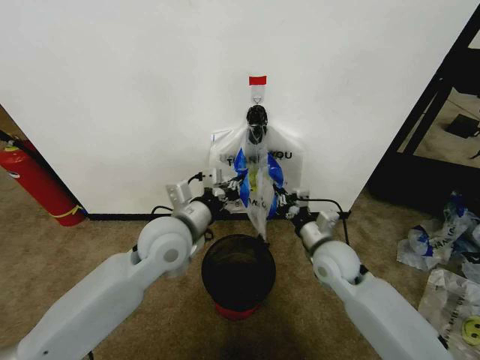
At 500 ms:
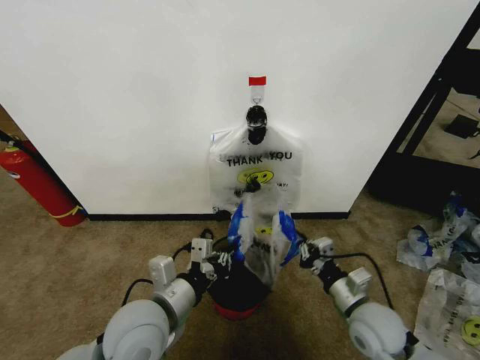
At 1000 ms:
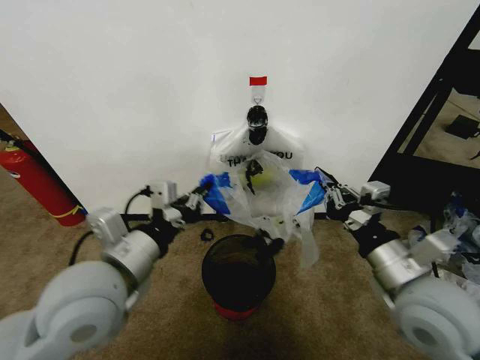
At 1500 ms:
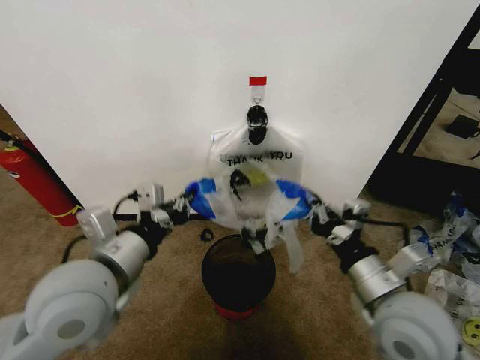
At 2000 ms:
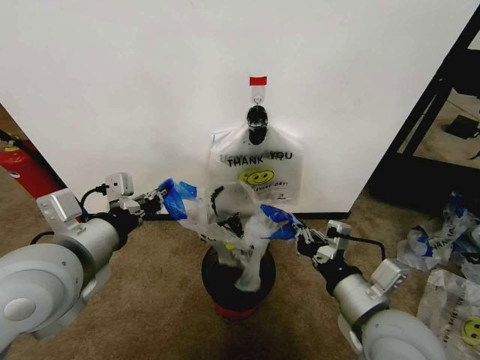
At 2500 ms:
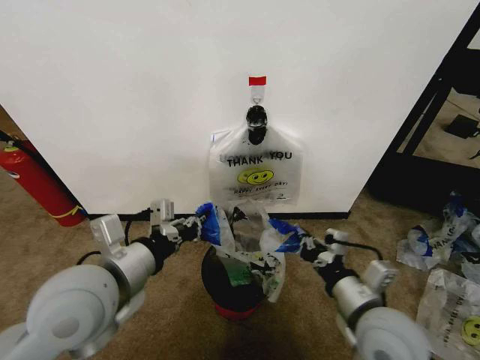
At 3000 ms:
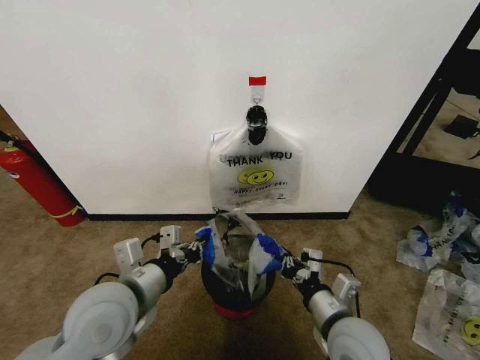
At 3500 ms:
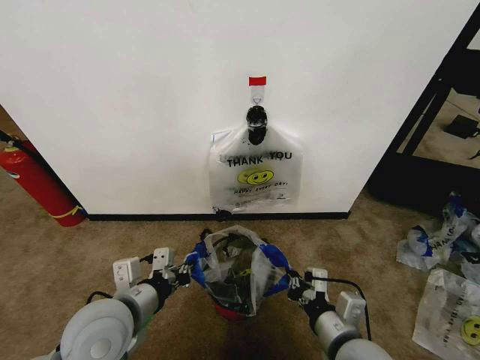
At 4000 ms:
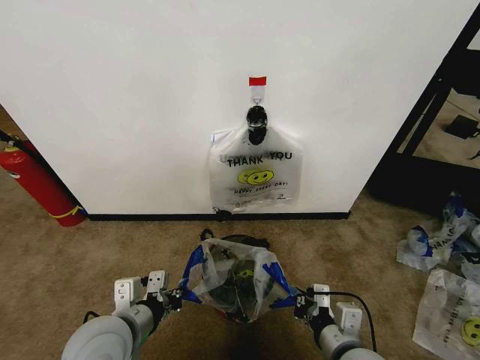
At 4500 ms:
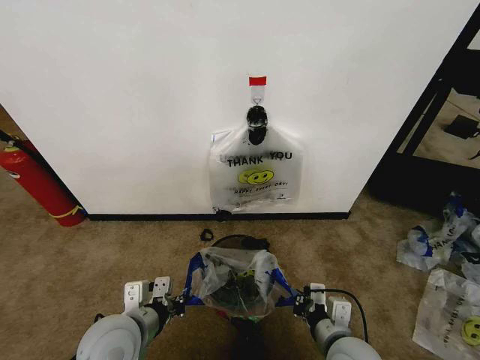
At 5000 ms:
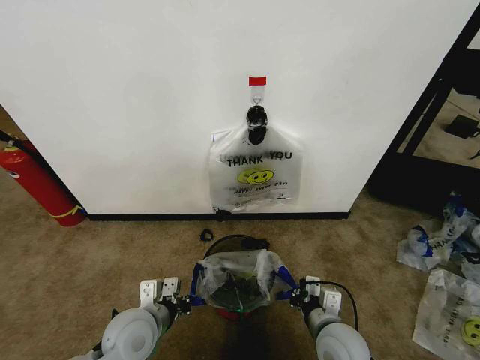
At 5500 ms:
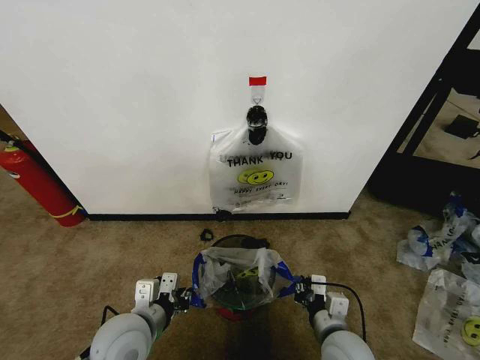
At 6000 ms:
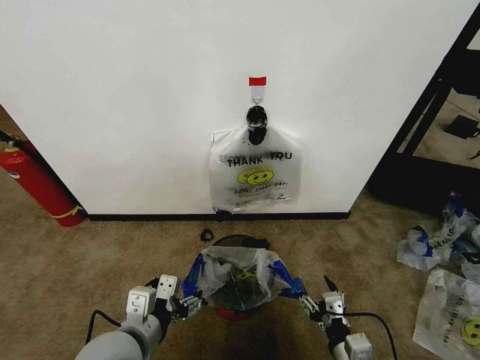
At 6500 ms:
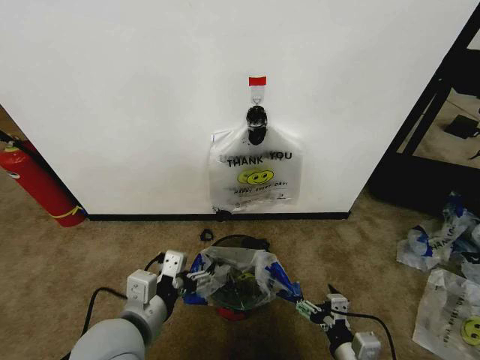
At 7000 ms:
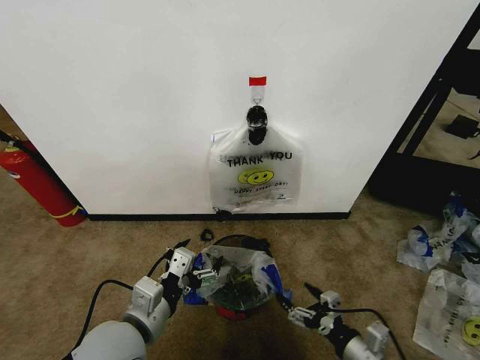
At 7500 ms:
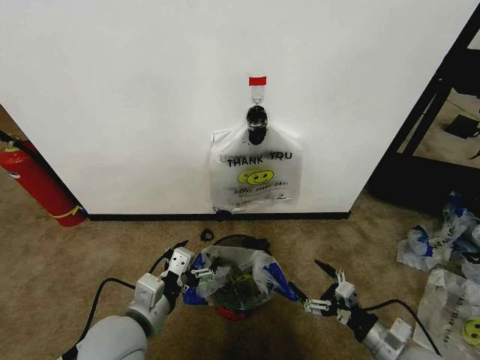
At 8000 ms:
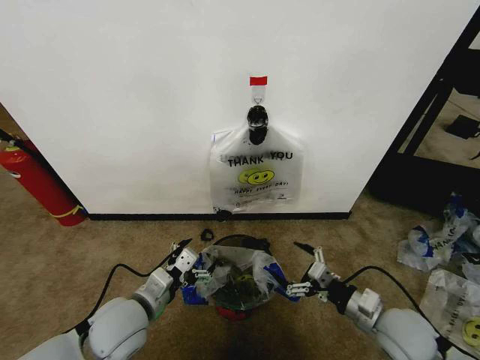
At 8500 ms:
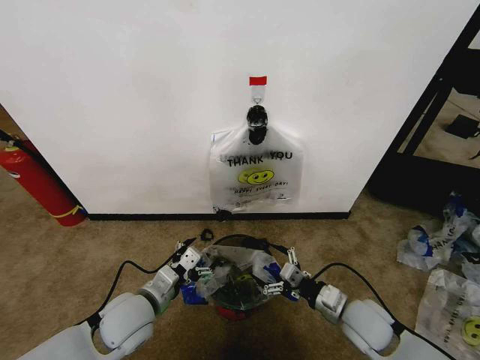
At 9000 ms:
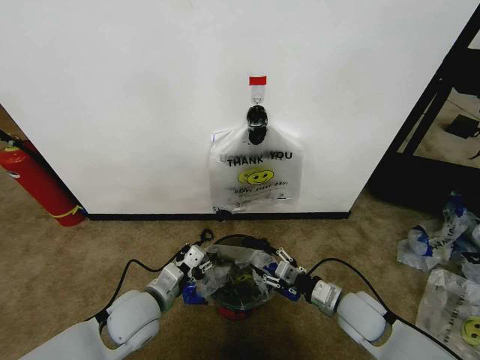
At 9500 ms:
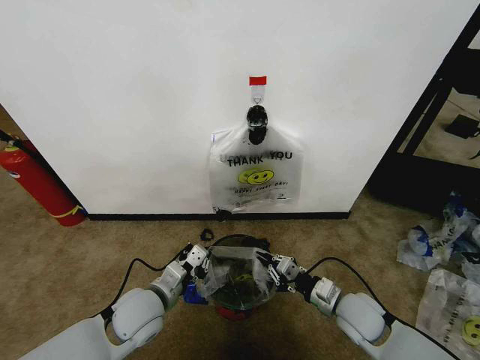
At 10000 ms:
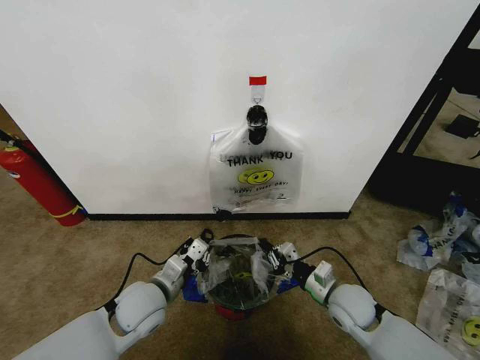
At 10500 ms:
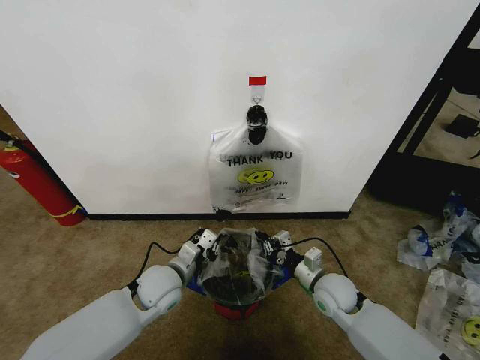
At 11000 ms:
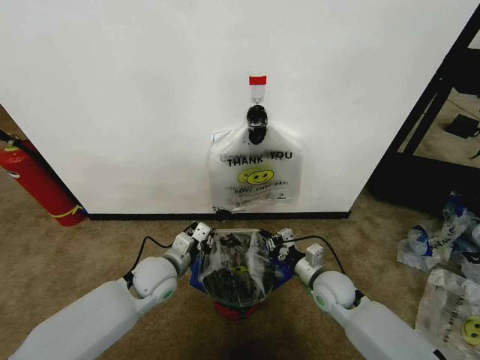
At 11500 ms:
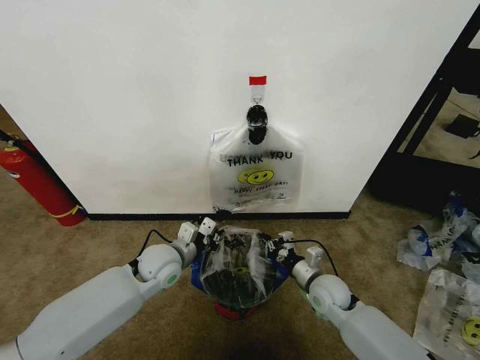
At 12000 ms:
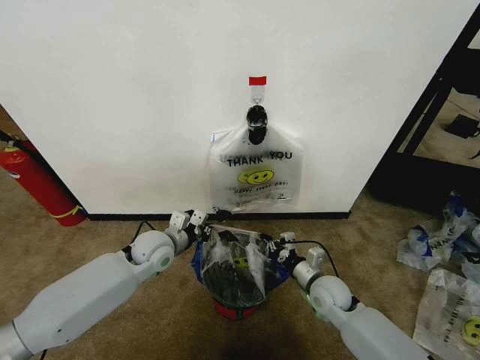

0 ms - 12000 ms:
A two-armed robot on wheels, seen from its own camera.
Task of the whole recording: Pick up the garbage bag from the wall and place it over the trash bin.
0 ms - 2000 ms: The right gripper heads backward and upward, covering some 20 cm, while the left gripper heads backward, to the left and upward, covering some 20 cm.
2000 ms - 4000 ms: The left gripper heads downward, covering about 15 cm. The right gripper moves downward, about 10 cm.
4000 ms - 6000 ms: The right gripper goes some 10 cm downward, goes forward and returns, approximately 5 cm each way, and opens up. Meanwhile the left gripper travels downward and back again, about 5 cm each way, and opens up.
6000 ms - 8000 ms: The left gripper goes approximately 5 cm forward, while the right gripper goes about 15 cm forward, to the right and upward.
8000 ms - 10000 ms: The right gripper travels forward and to the left by about 10 cm, and closes its fingers; the left gripper ends up about 5 cm from where it was, and closes up.
10000 ms - 12000 ms: The right gripper changes place by about 5 cm; the left gripper shifts about 10 cm forward.

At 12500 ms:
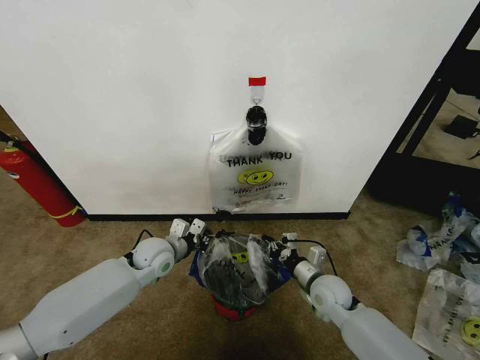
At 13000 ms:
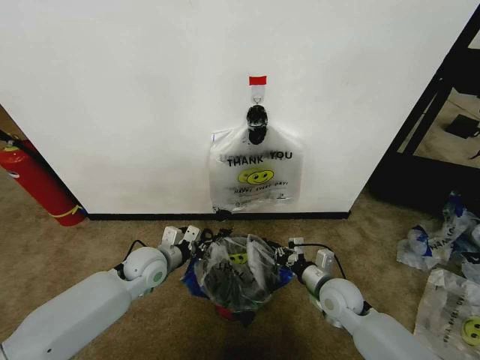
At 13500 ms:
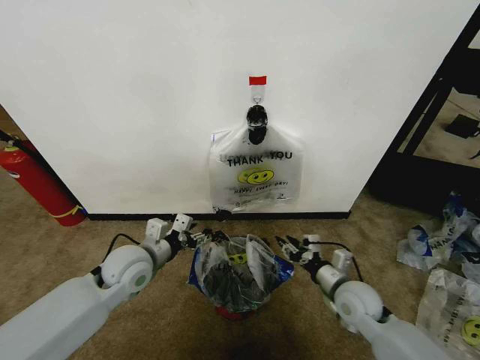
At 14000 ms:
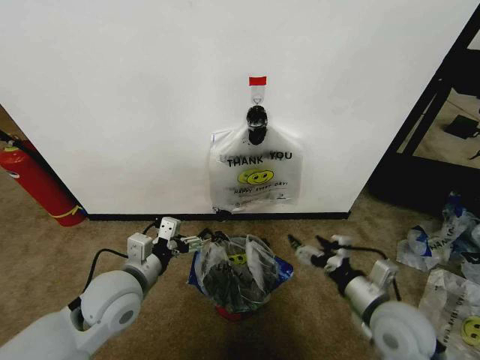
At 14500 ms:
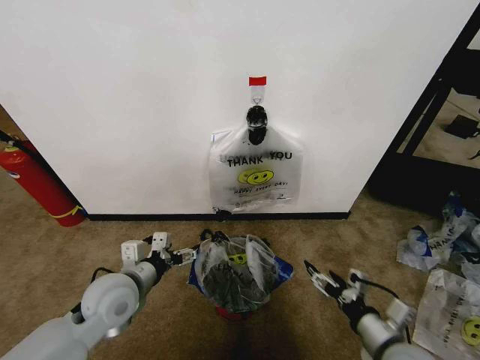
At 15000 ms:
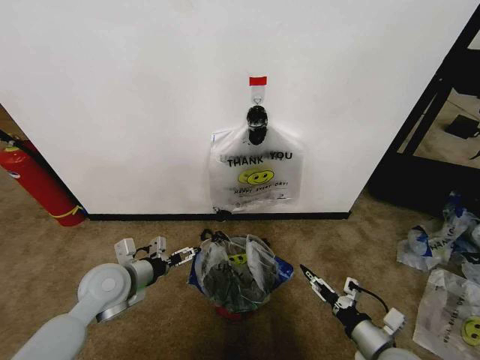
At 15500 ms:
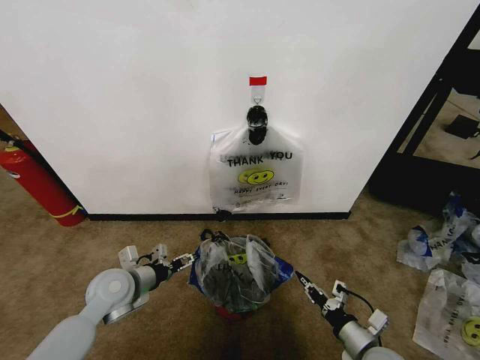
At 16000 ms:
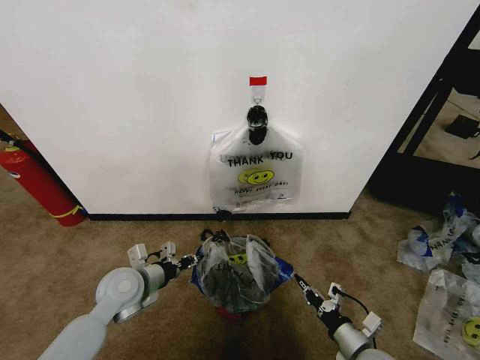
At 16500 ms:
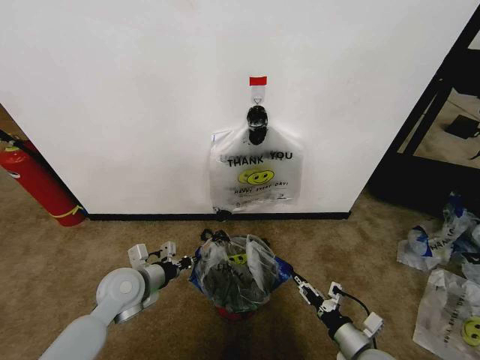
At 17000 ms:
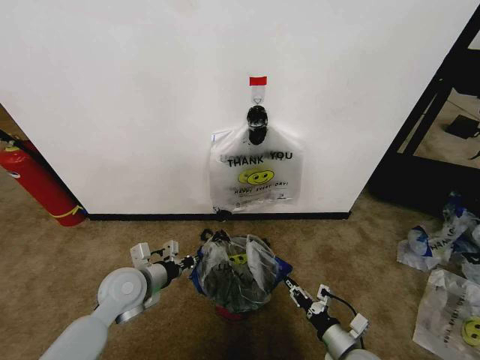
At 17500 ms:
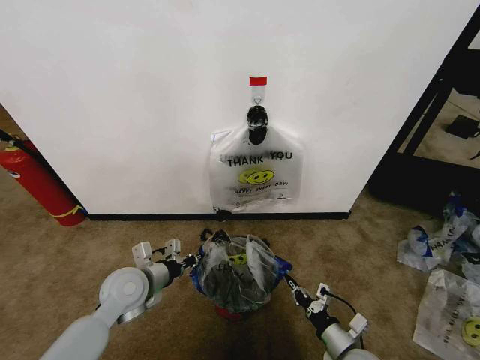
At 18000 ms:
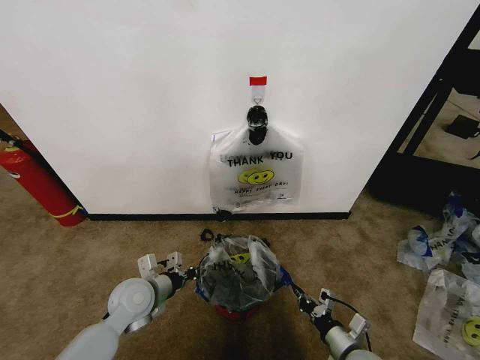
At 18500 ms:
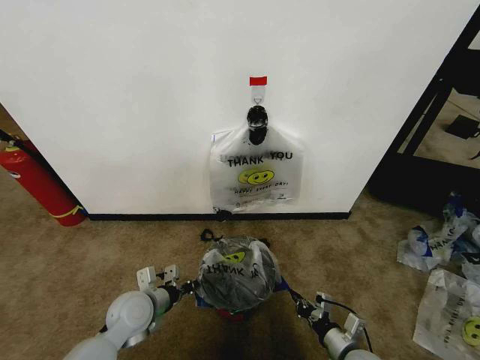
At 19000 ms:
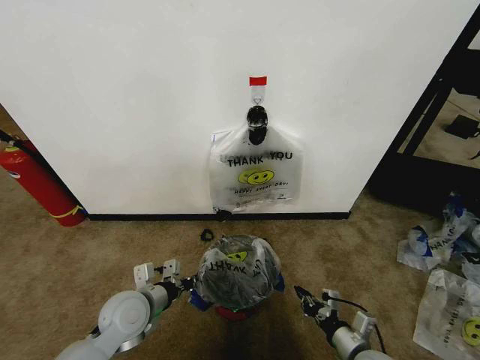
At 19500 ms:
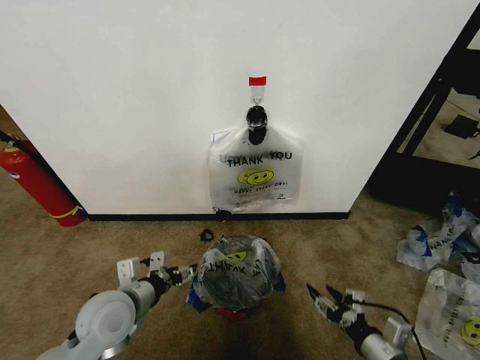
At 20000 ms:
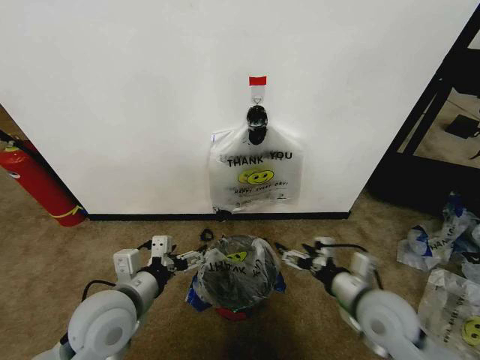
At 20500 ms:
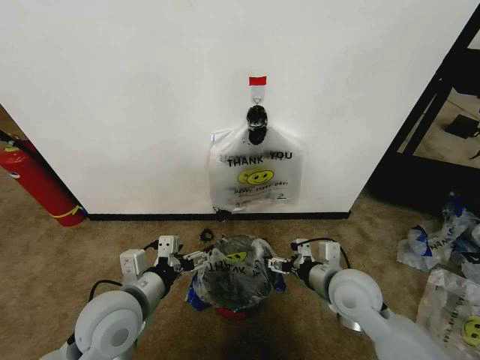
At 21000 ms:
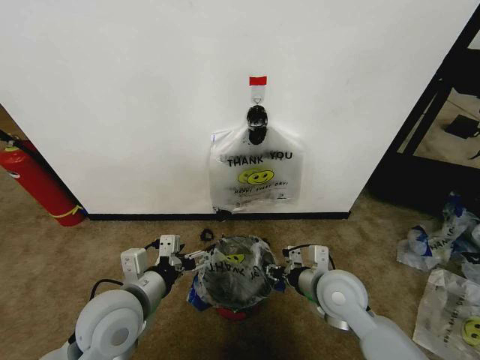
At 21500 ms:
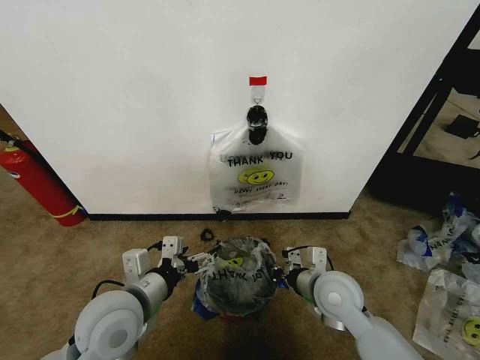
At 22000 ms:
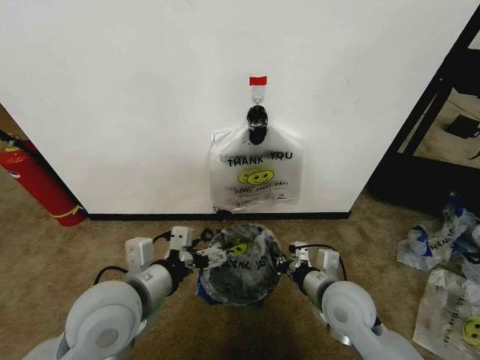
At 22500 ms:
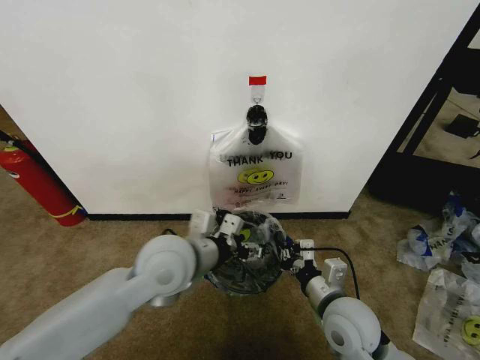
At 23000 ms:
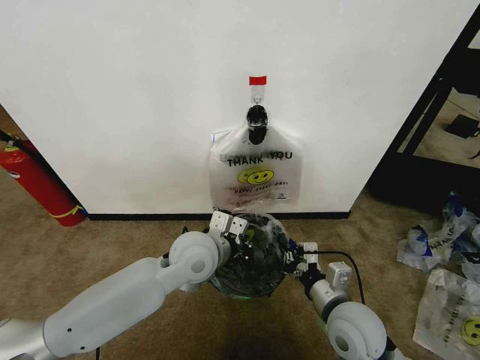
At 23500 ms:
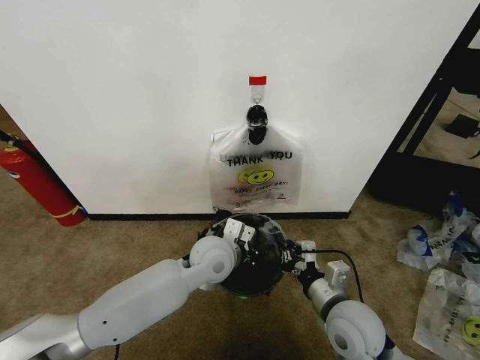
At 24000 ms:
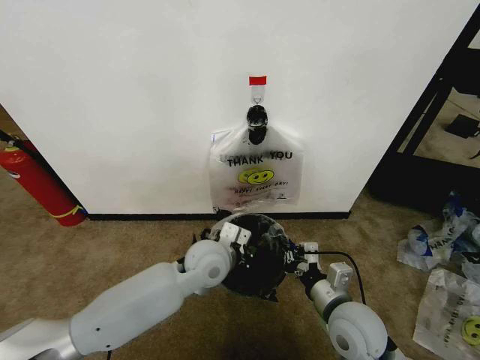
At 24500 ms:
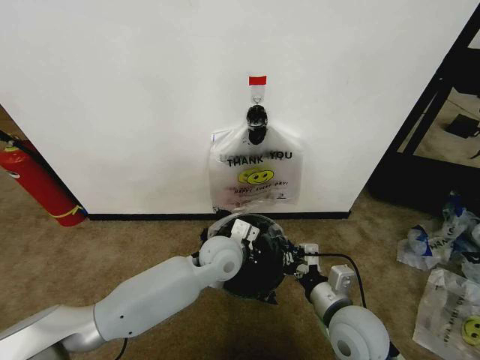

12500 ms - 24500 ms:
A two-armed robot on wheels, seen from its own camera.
Task of the whole recording: Pick up the garbage bag from the wall and place it over the trash bin.
12500 ms - 14500 ms: The left gripper shifts roughly 15 cm backward and upward, and opens up. Meanwhile the right gripper is displaced backward, to the right and upward by roughly 20 cm, and opens up.
14500 ms - 16500 ms: The right gripper travels downward by about 10 cm, and closes. Meanwhile the left gripper shifts by roughly 5 cm, and closes up.
16500 ms - 18500 ms: The right gripper closes up, while the left gripper moves downward, some 5 cm.
18500 ms - 20500 ms: The left gripper moves upward and backward, about 15 cm, and opens up, while the right gripper moves upward and forward, roughly 20 cm, and opens its fingers.
20500 ms - 22500 ms: The right gripper heads backward, covering about 5 cm, and closes up; the left gripper shifts about 15 cm to the right, forward and upward, and closes.
22500 ms - 24500 ms: The left gripper moves downward, to the right and forward, some 15 cm, and closes.

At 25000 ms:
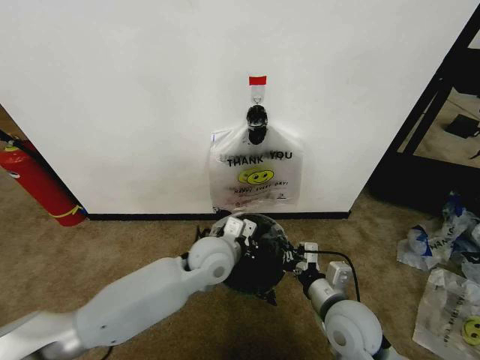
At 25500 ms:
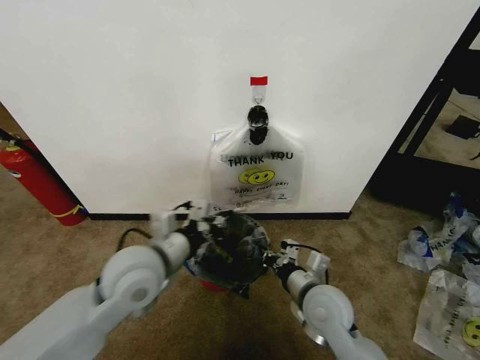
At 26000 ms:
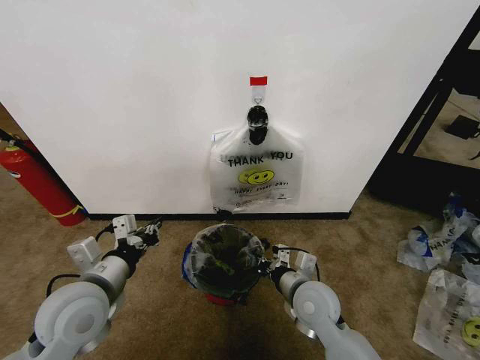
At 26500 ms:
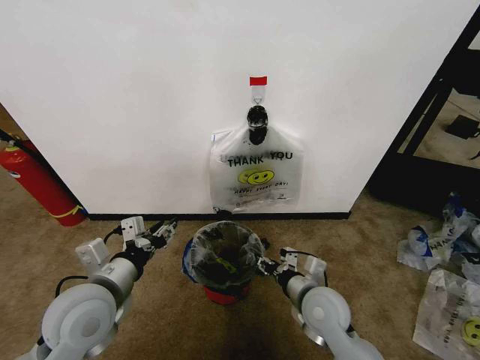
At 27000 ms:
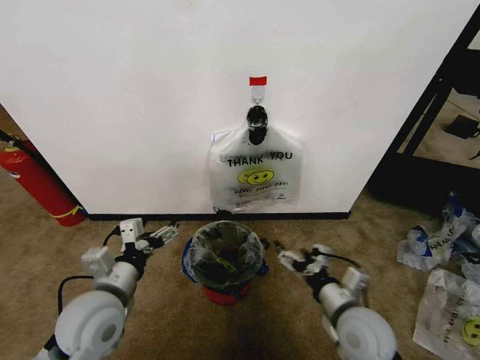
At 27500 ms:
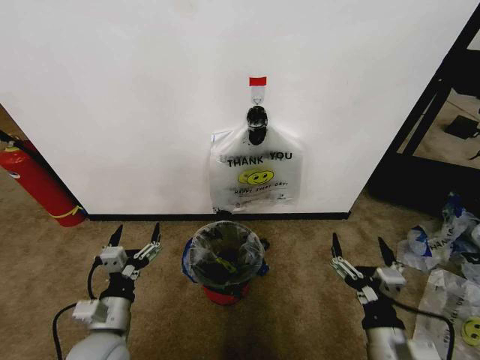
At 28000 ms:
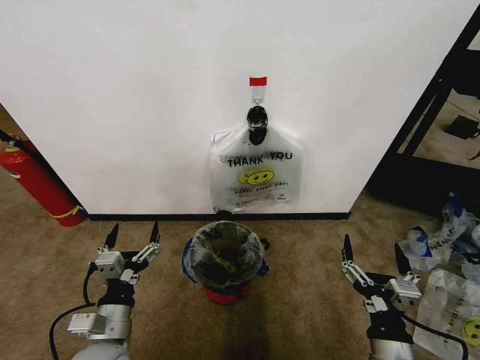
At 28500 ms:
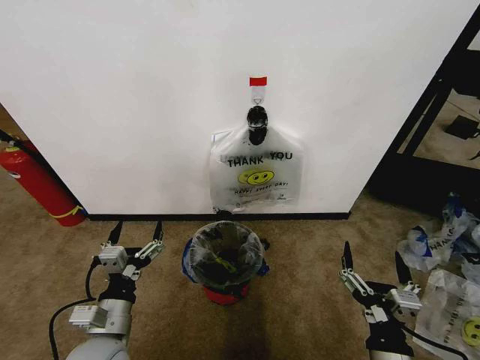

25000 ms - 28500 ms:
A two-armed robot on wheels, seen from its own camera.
Task of the whole recording: Pick up the garbage bag from the wall and place it over the trash bin.
25000 ms - 27000 ms: The left gripper goes roughly 20 cm to the left and backward, and opens its fingers. The right gripper opens up.
27000 ms - 28500 ms: The left gripper is displaced downward and backward by approximately 10 cm; the right gripper is displaced backward by about 15 cm.
